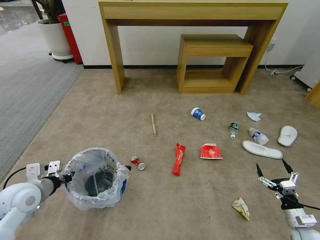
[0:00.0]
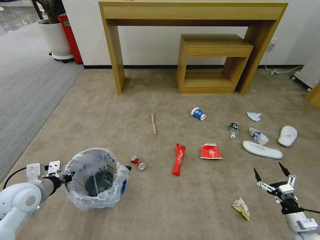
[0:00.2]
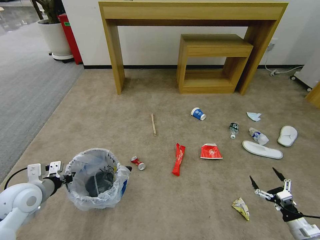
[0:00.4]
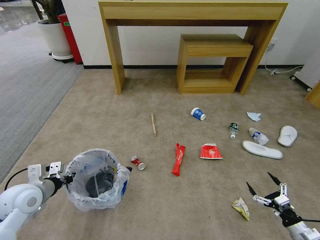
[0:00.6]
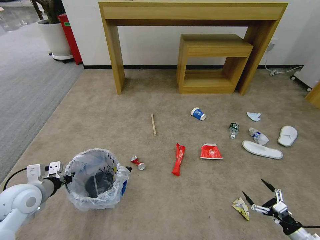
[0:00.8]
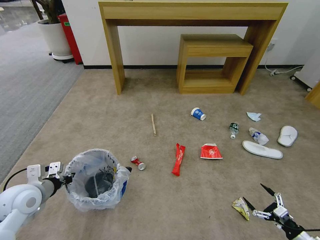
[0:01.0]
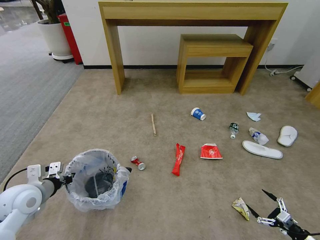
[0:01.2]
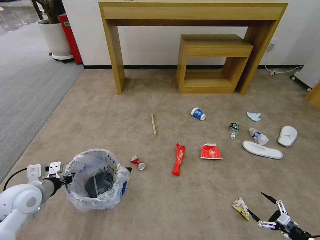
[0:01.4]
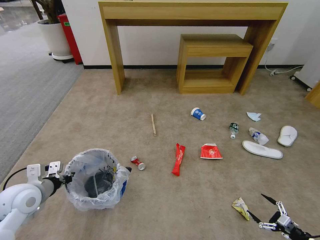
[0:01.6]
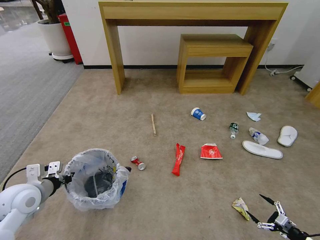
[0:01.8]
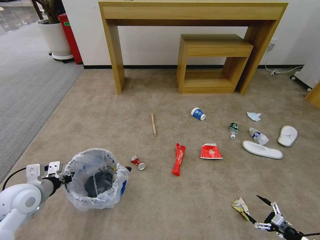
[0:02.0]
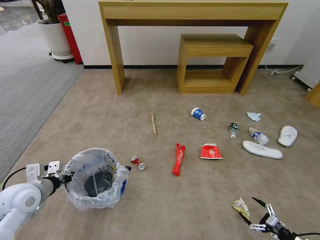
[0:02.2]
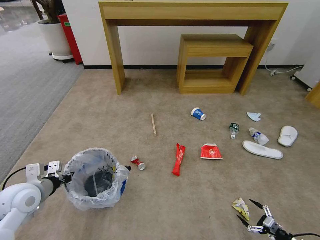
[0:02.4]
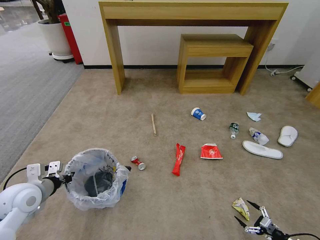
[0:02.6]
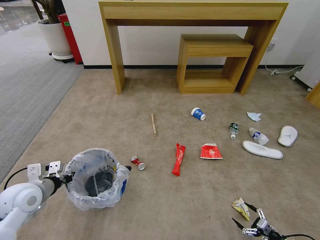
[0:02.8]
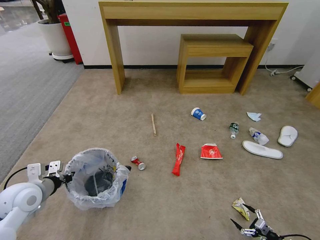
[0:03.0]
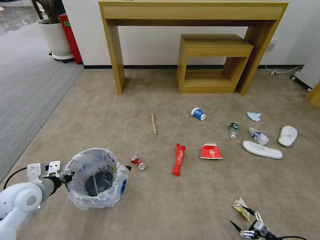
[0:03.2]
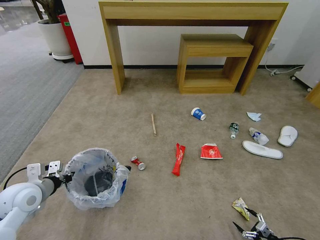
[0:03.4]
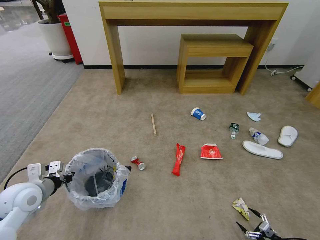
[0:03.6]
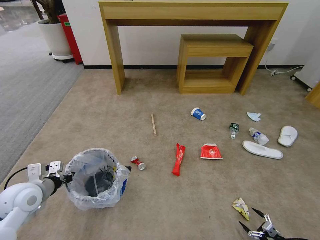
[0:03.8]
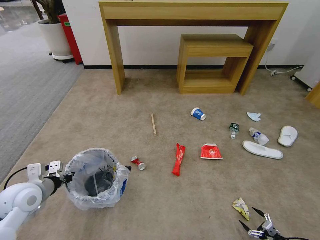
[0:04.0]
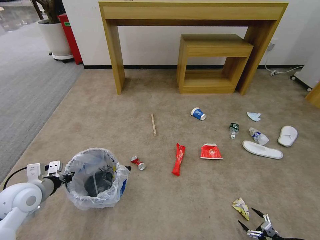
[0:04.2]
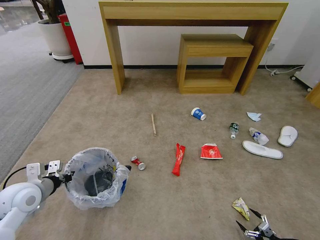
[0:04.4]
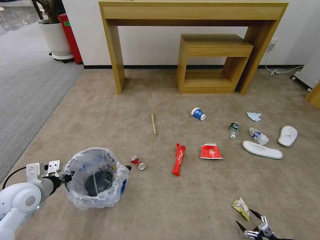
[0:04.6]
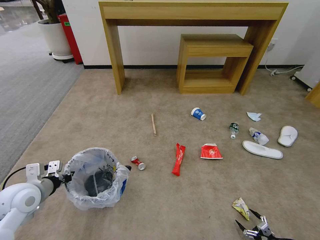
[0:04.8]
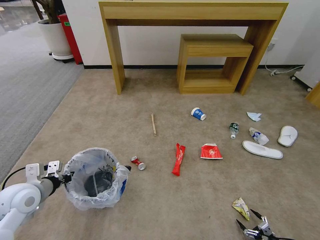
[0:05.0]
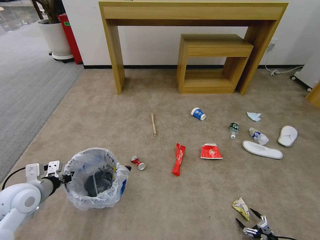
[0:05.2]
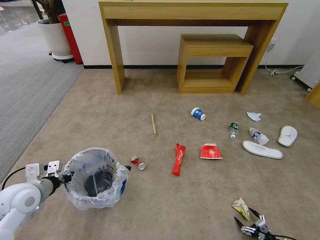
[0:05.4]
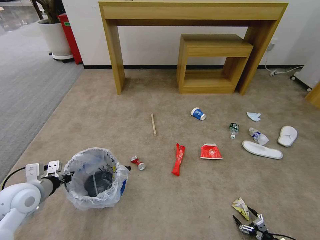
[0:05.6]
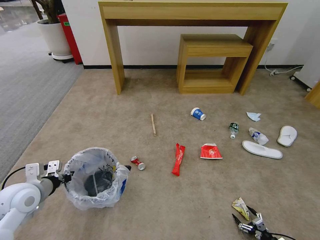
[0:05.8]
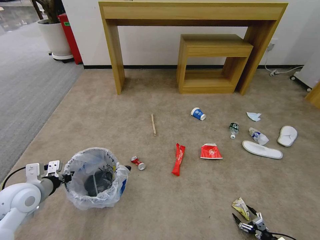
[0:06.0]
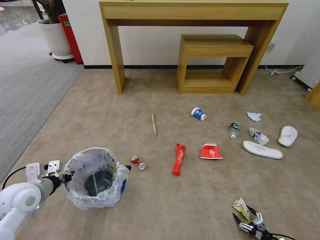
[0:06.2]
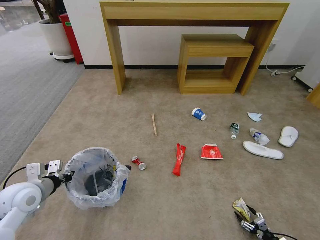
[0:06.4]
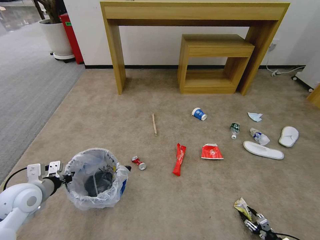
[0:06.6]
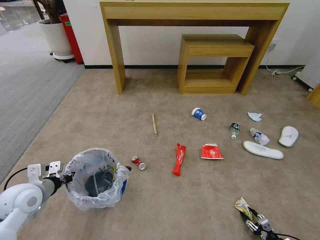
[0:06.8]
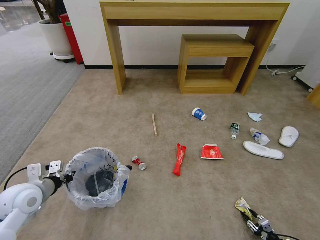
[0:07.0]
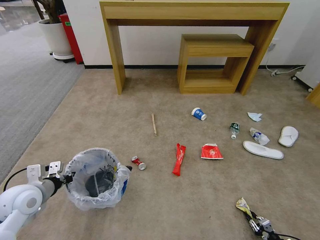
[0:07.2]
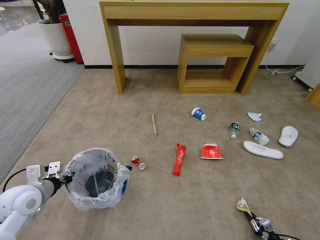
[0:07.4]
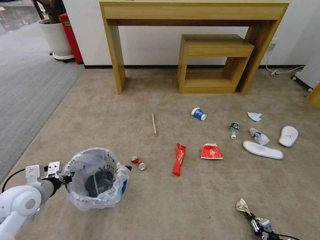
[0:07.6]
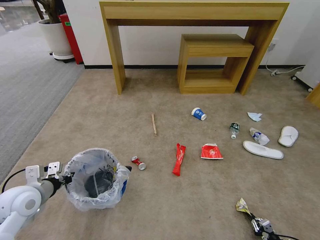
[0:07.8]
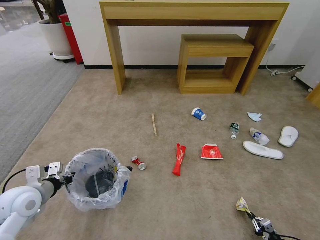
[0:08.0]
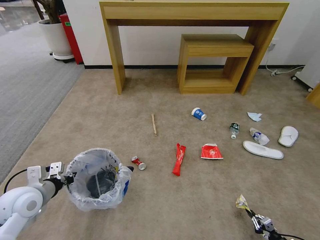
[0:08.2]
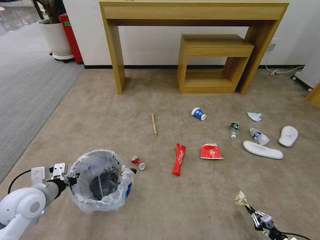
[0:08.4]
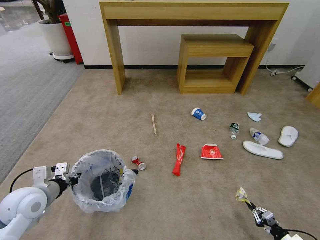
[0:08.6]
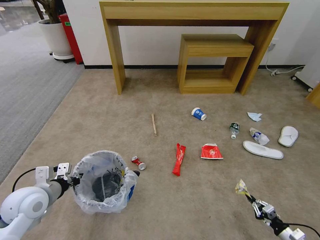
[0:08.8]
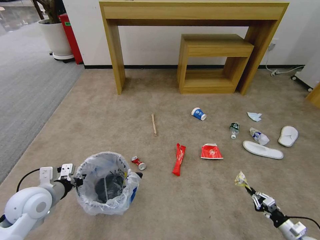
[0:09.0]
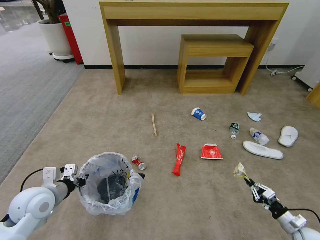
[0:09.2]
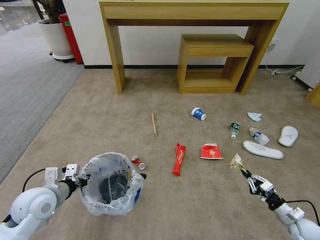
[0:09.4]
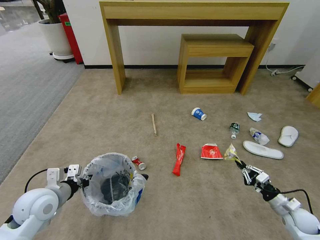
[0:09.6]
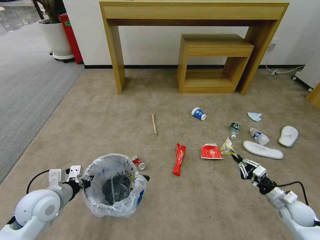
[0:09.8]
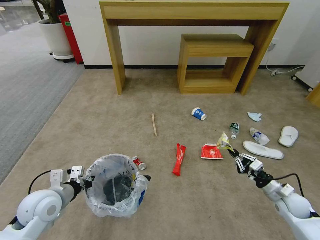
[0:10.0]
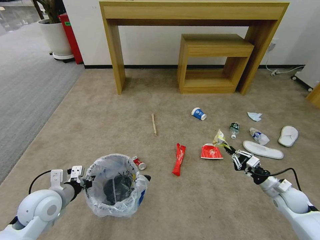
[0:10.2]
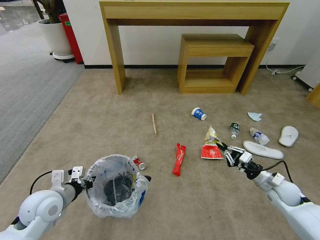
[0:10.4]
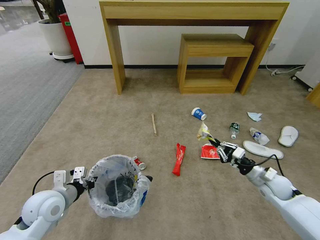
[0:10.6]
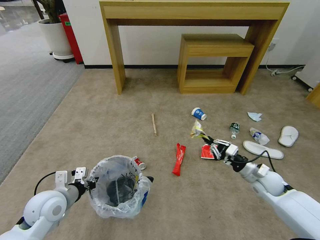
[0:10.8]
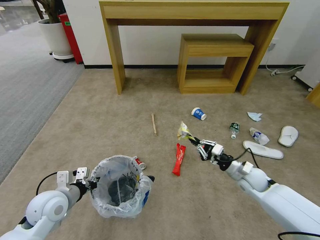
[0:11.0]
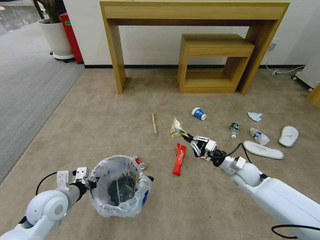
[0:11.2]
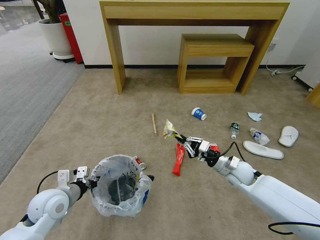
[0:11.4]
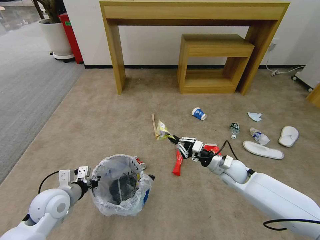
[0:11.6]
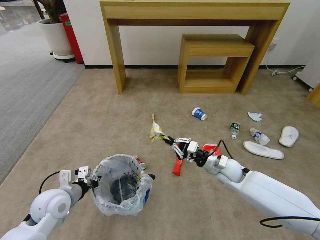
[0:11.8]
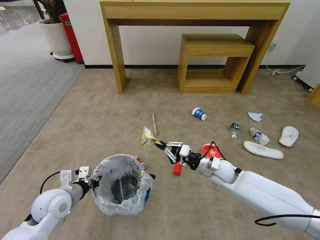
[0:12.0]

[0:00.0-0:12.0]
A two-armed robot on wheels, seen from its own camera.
Task of the whole recording: Pick up the trash bin and place the garbage on the floor into it.
0:00.0 to 0:01.6: The right gripper shifts roughly 10 cm backward and to the right.
0:01.6 to 0:03.0: The right gripper goes roughly 10 cm downward.
0:03.0 to 0:04.4: The grippers make only small movements.
0:04.4 to 0:06.0: The grippers make only small movements.
0:06.0 to 0:07.6: The right gripper closes up.
0:07.6 to 0:09.0: The right gripper heads upward and forward, covering about 10 cm.
0:09.0 to 0:10.4: The right gripper shifts approximately 25 cm upward, forward and to the left.
0:10.4 to 0:12.0: The right gripper goes about 20 cm to the left.

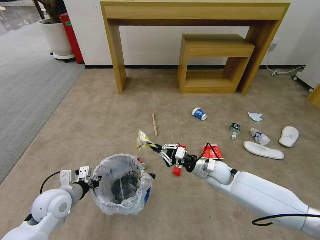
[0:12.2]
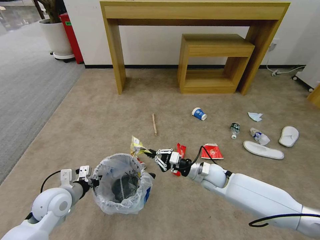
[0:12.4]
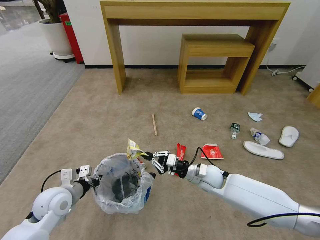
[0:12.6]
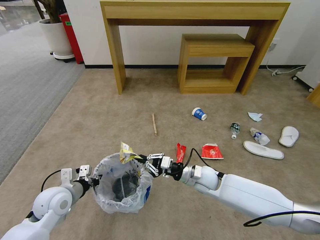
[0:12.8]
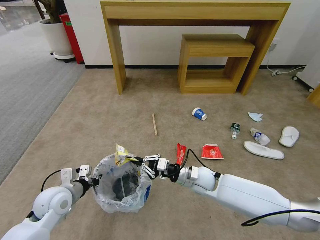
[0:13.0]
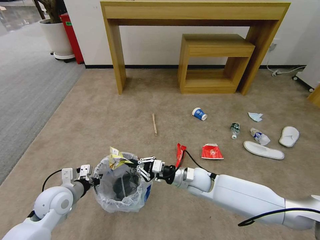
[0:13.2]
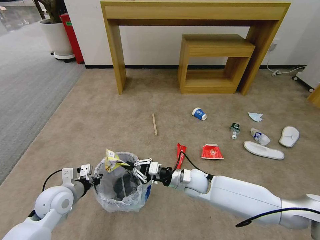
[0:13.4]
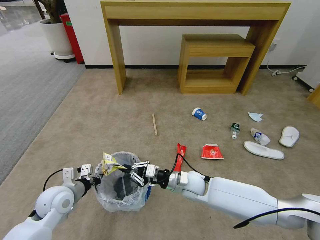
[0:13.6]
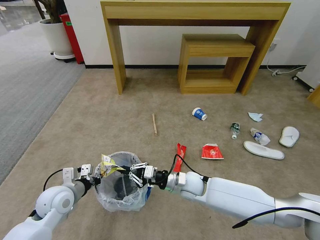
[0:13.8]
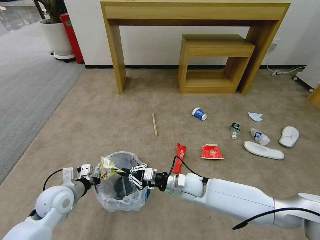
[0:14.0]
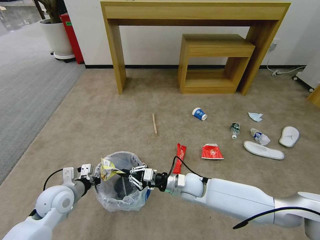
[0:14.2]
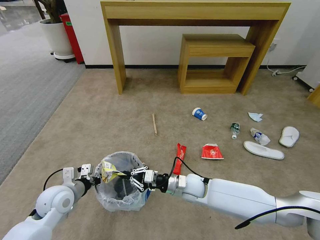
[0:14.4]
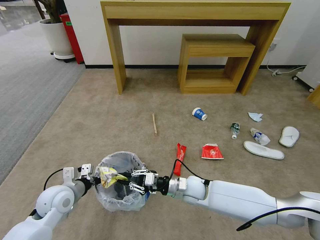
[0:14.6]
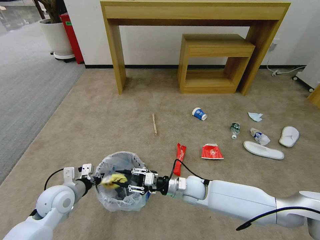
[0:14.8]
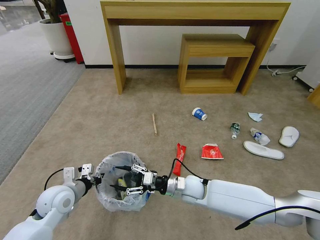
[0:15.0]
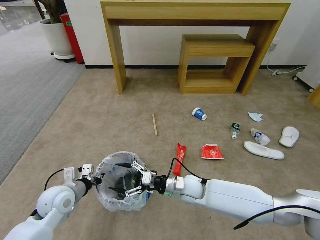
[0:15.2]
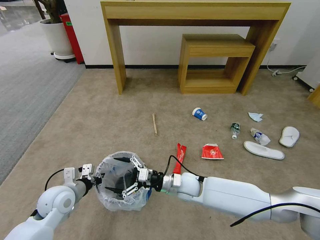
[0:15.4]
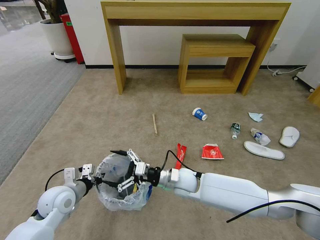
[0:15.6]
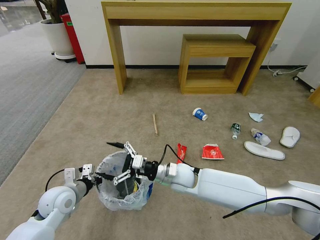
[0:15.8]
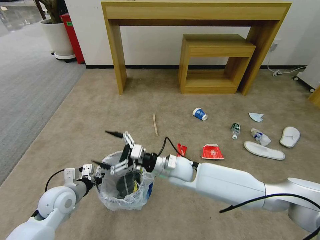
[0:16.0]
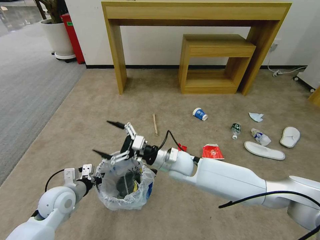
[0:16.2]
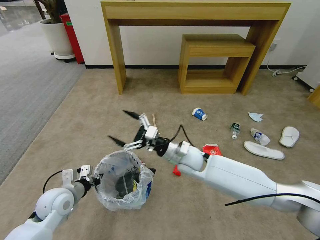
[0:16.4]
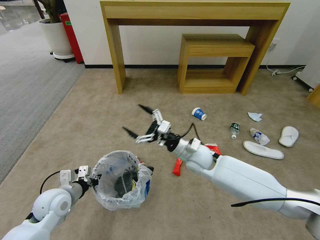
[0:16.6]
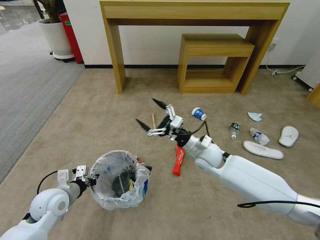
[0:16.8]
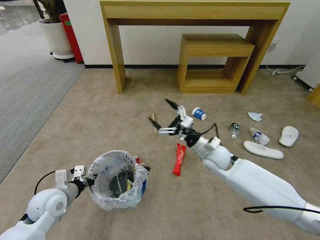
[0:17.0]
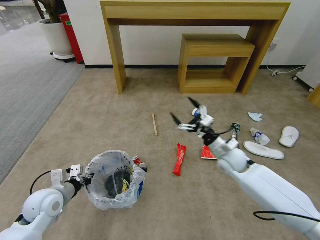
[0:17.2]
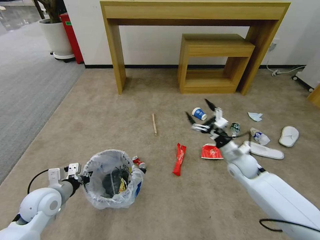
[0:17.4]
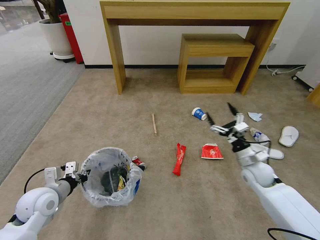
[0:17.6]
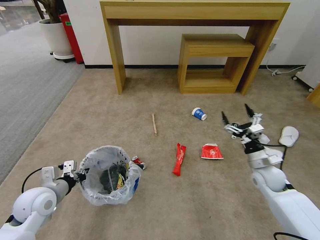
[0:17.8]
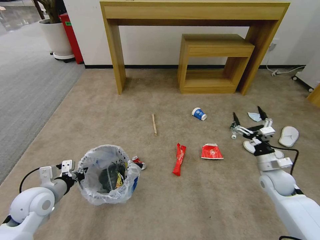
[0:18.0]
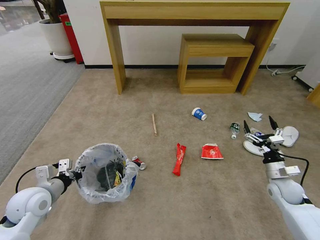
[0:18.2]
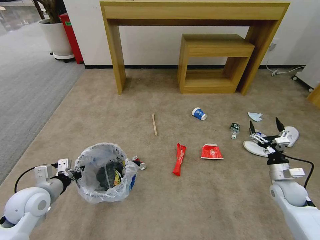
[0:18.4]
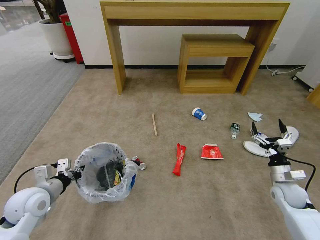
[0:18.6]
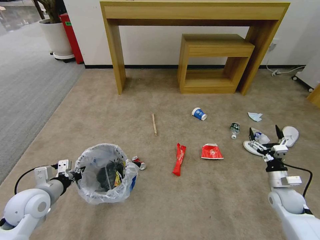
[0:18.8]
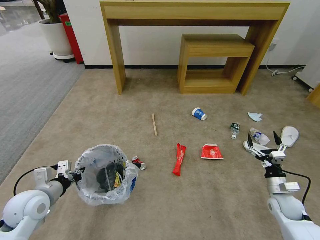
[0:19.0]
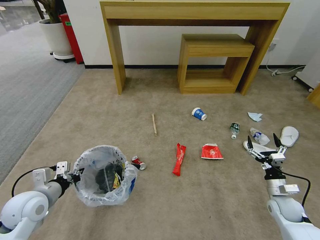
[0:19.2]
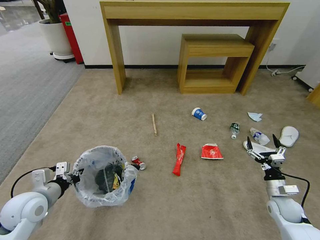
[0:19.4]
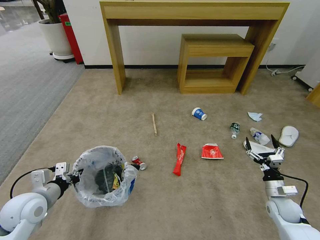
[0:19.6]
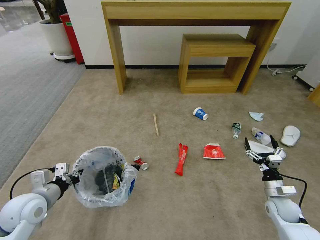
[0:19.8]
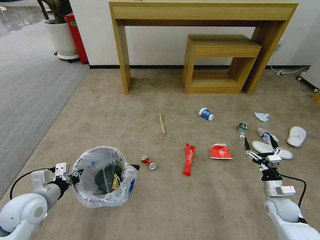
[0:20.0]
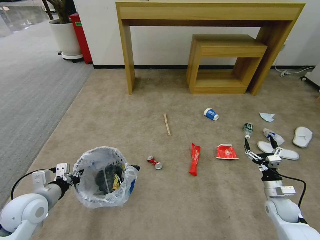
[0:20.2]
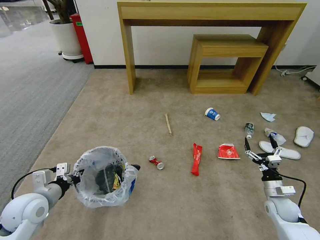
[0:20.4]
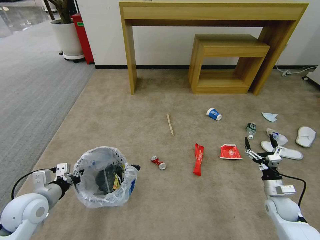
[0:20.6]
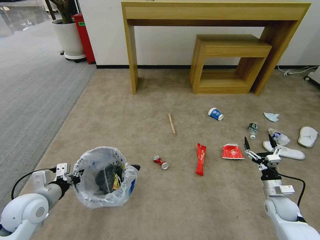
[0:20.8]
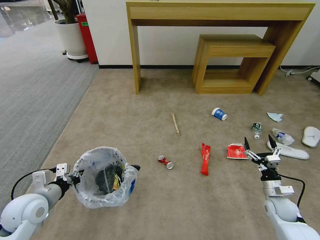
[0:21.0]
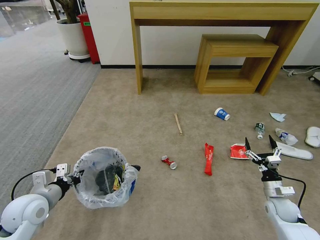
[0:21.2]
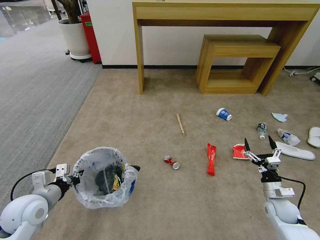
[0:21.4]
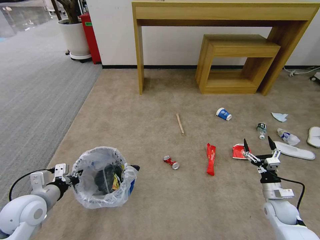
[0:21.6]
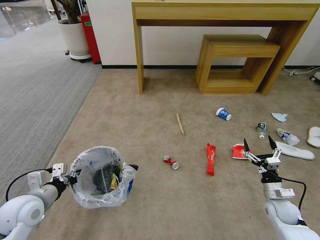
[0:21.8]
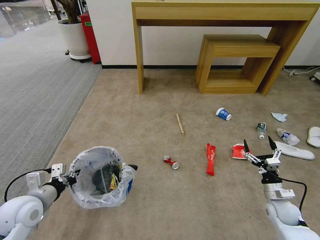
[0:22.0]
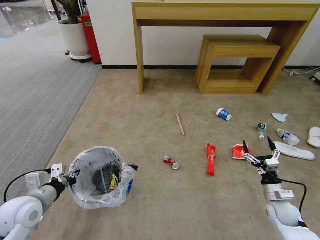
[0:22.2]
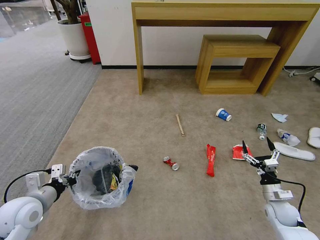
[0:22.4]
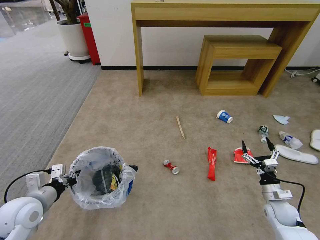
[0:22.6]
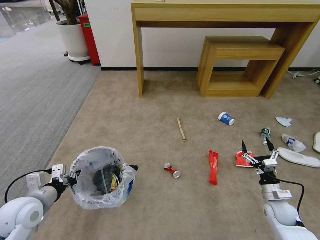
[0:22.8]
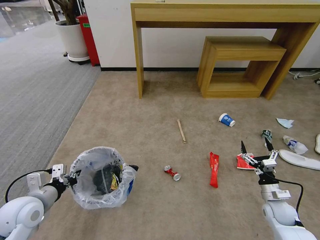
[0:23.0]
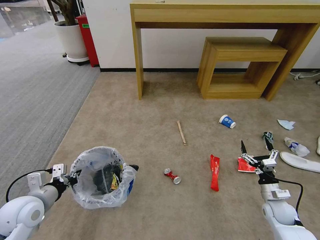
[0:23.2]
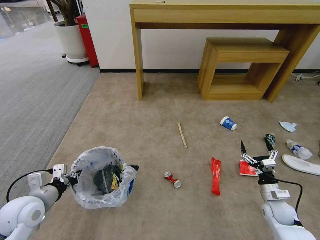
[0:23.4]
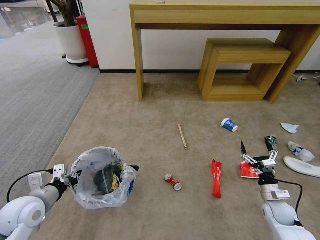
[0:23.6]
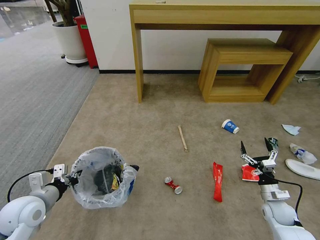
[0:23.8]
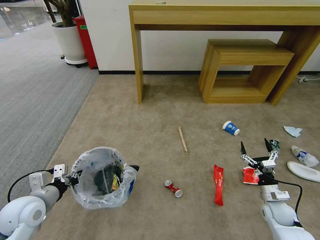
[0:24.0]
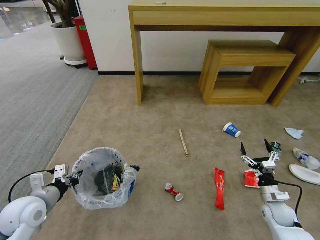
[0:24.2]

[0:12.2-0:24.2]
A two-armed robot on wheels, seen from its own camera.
Task of the whole recording: Pick up the trash bin and place the garbage on the floor into it.
0:12.2 to 0:13.8: The right gripper is displaced to the left by roughly 10 cm.
0:13.8 to 0:15.2: The right gripper opens.
0:15.2 to 0:16.6: The right gripper heads upward and forward, covering roughly 10 cm.
0:16.6 to 0:18.2: The right gripper shifts about 30 cm to the right. Meanwhile the left gripper moves approximately 5 cm.
0:18.2 to 0:19.8: The right gripper heads downward and backward, covering about 10 cm.
0:19.8 to 0:21.2: The two grippers keep their place.
0:21.2 to 0:22.6: The grippers stay close to where they were, moving slightly.
